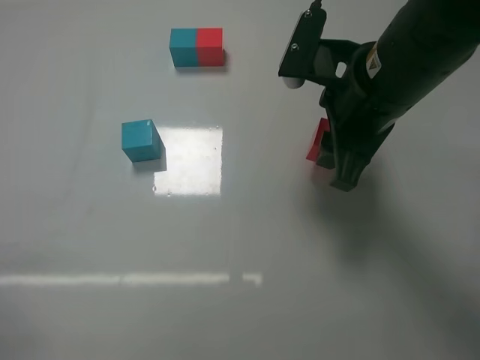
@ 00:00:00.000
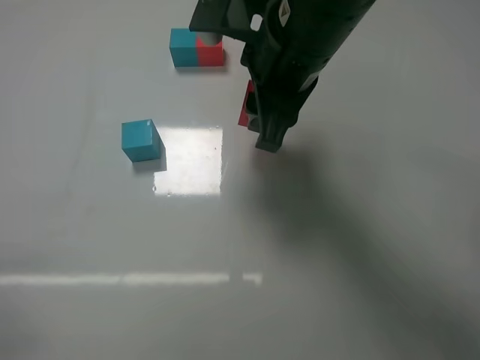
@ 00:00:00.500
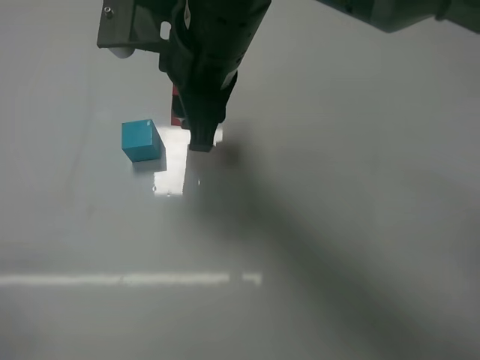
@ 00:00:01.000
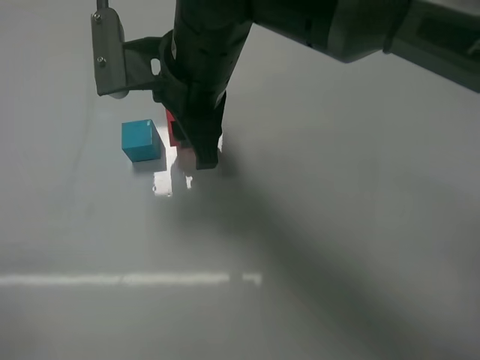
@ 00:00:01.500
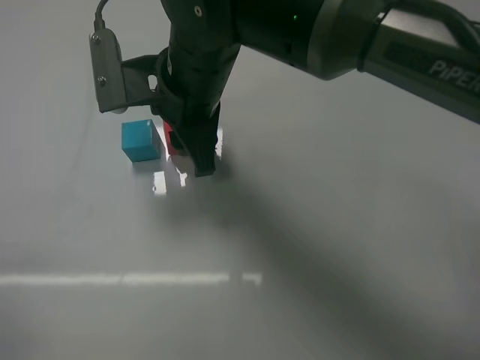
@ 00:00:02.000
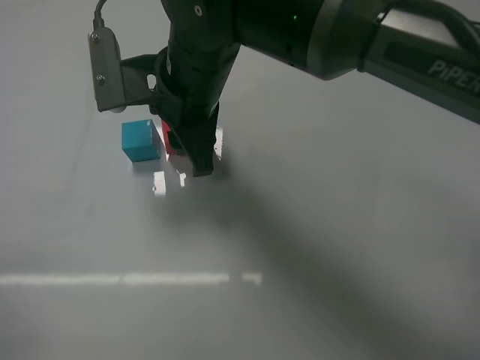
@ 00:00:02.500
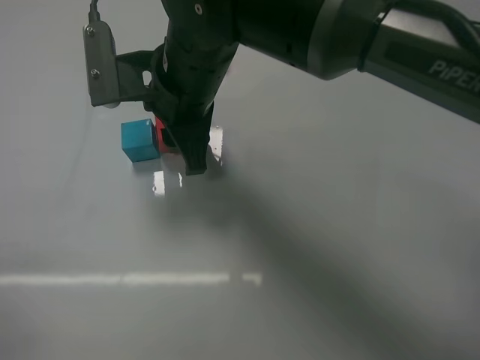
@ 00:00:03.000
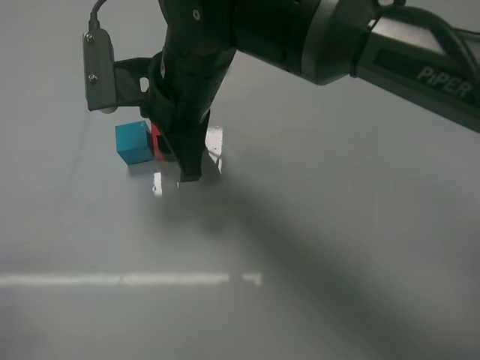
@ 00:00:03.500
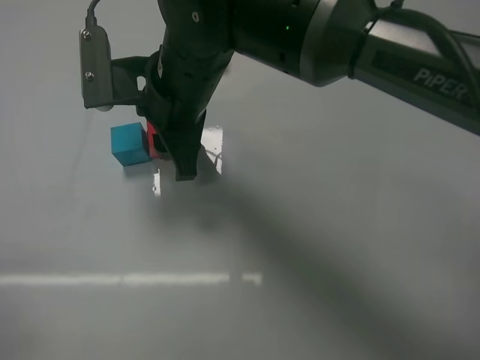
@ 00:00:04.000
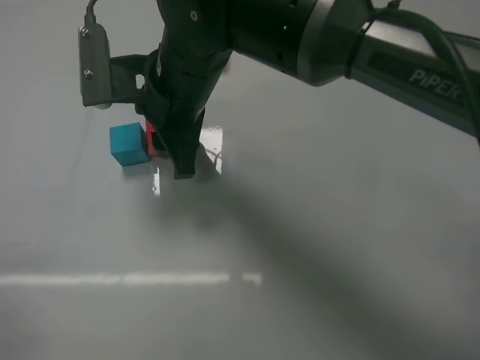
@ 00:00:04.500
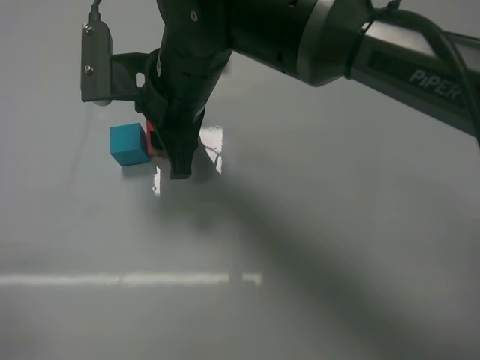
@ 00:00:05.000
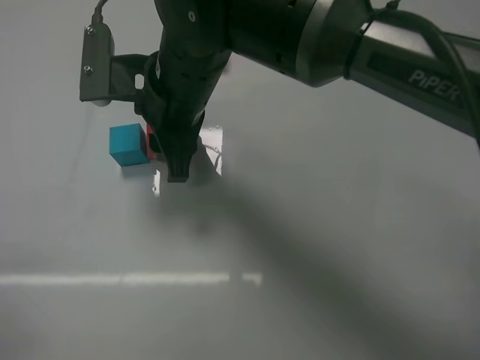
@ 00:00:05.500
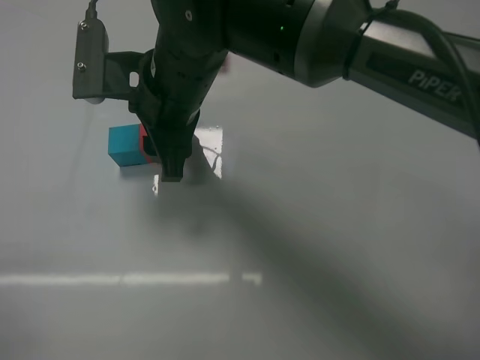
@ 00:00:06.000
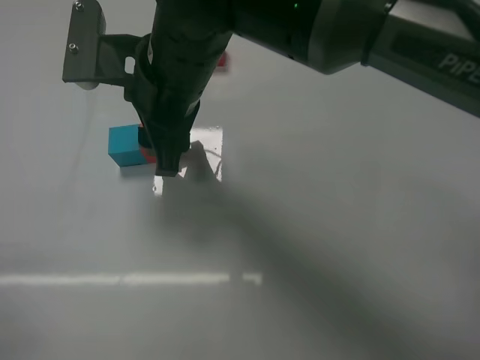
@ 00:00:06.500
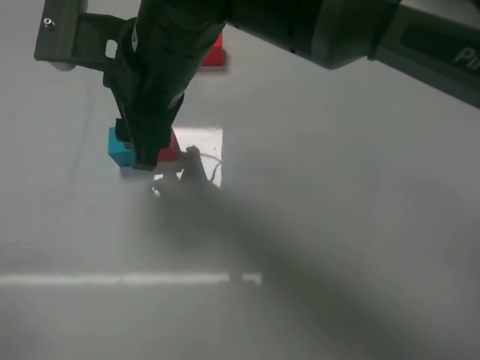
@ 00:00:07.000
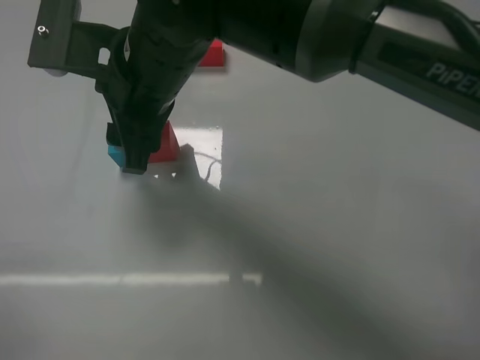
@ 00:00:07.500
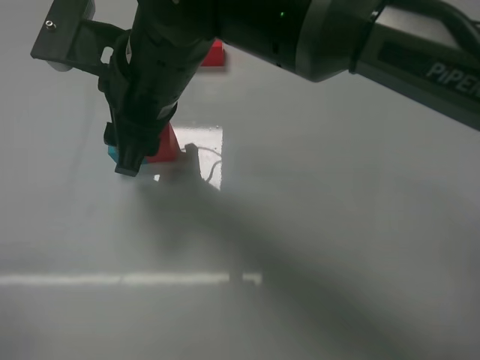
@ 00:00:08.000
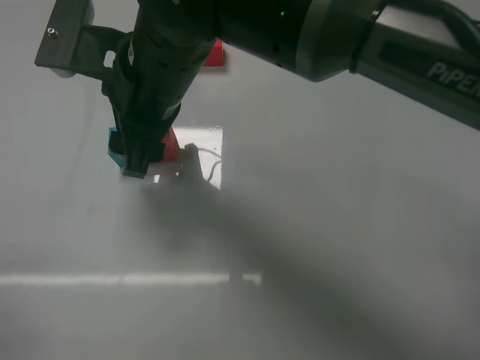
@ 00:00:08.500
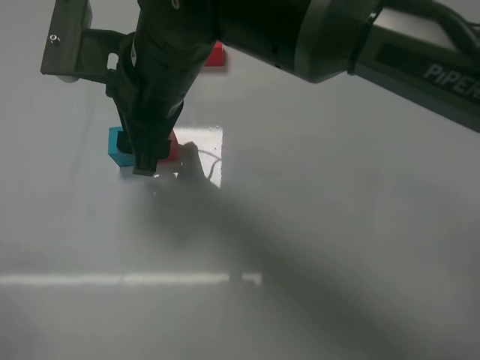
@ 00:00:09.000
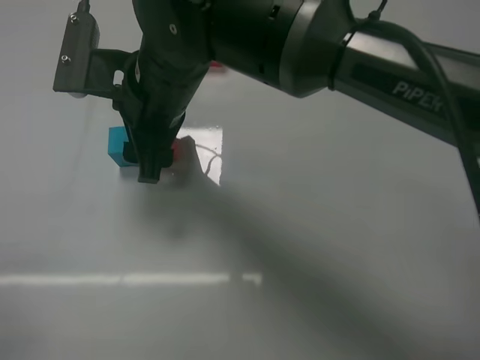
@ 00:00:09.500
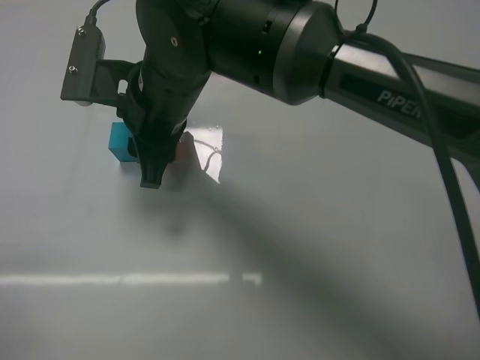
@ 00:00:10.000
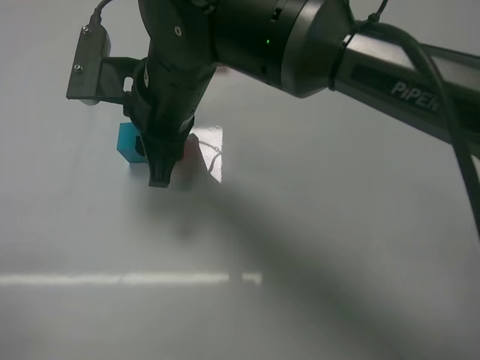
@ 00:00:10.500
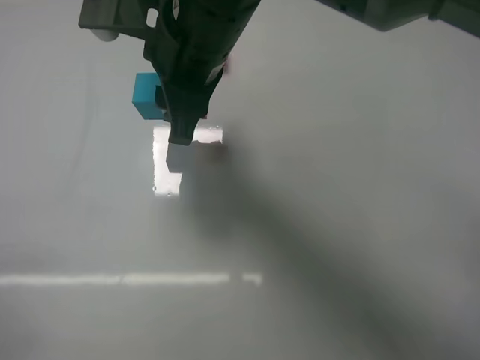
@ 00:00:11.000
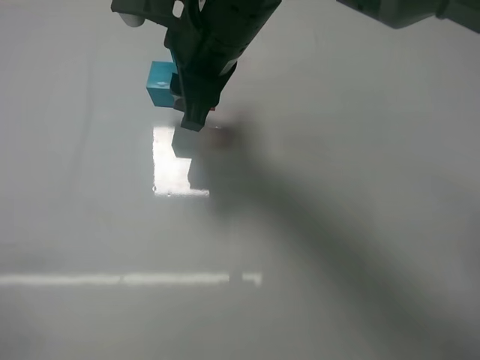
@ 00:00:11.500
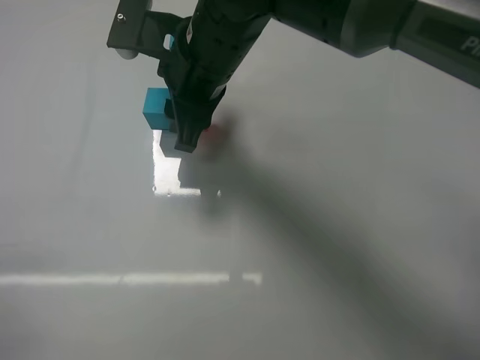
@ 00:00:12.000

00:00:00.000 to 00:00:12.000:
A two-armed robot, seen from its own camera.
Task of the whole recording: According to the building block template in front, assemble the scattered blocks together.
Step, 00:00:00.000 to 00:00:06.000: Put the red cube on the right of the blue cube with the right gripper.
00:00:00.000 to 00:00:02.000: The right gripper heads to the left, covering roughly 15 cm.
00:00:02.000 to 00:00:04.000: The grippers make only small movements.
00:00:04.000 to 00:00:06.000: The right gripper opens its fingers.
00:00:06.000 to 00:00:08.000: The grippers stay close to where they were, moving slightly.
00:00:08.000 to 00:00:10.000: The right gripper closes its fingers.
00:00:10.000 to 00:00:12.000: The right gripper moves roughly 5 cm.

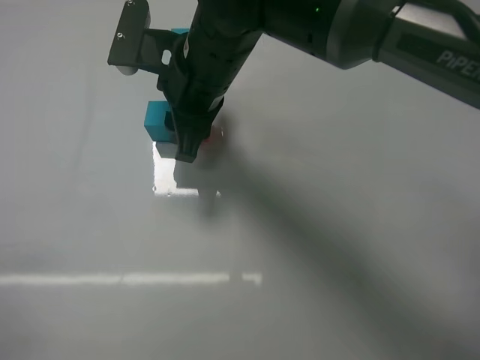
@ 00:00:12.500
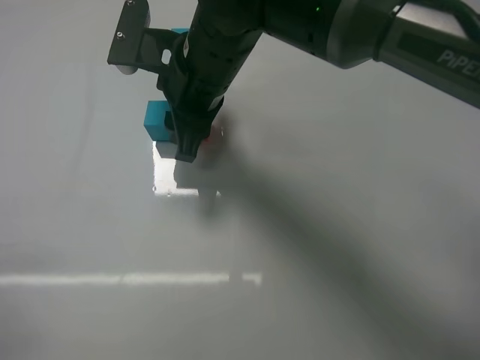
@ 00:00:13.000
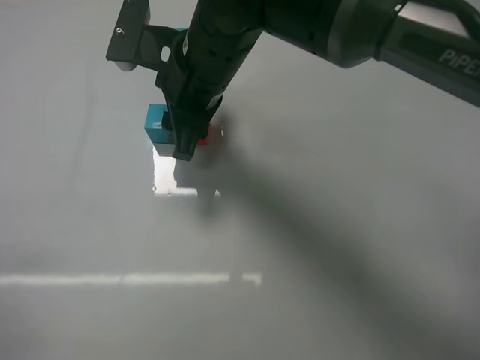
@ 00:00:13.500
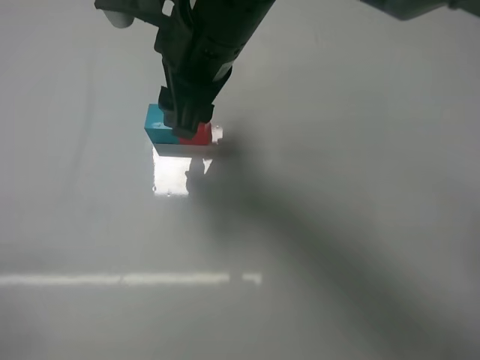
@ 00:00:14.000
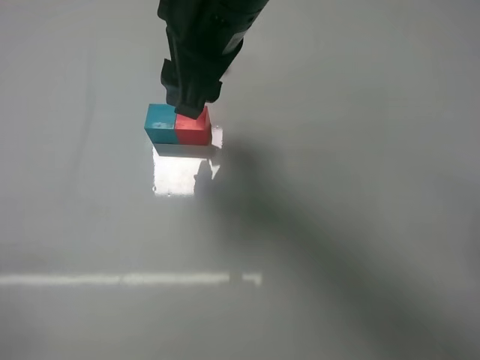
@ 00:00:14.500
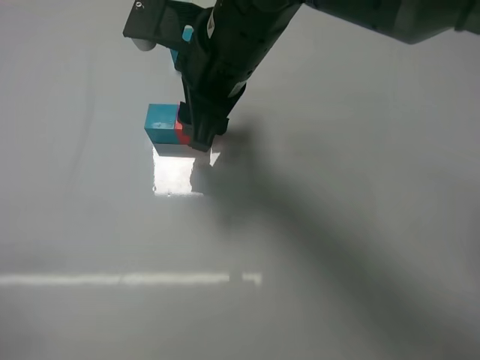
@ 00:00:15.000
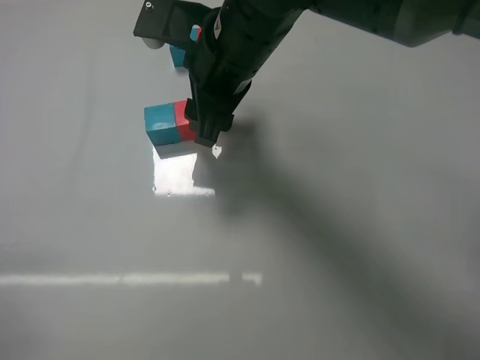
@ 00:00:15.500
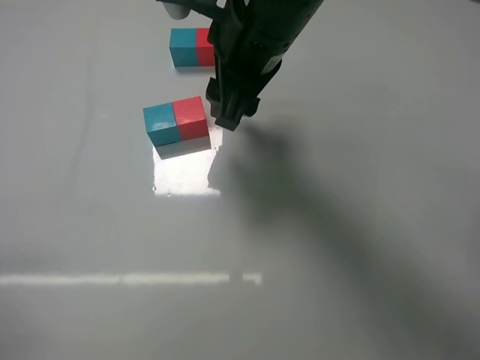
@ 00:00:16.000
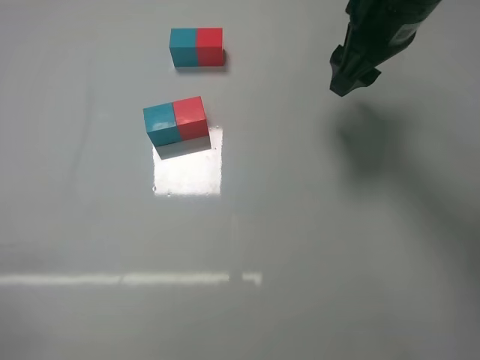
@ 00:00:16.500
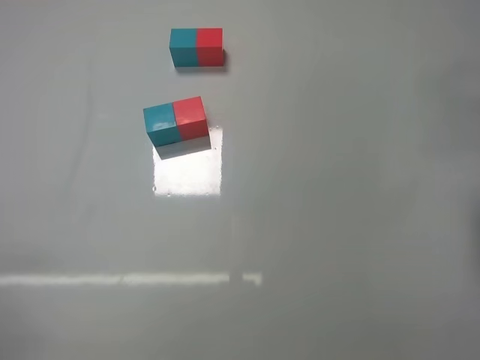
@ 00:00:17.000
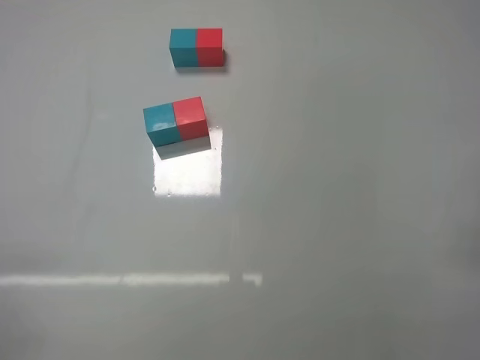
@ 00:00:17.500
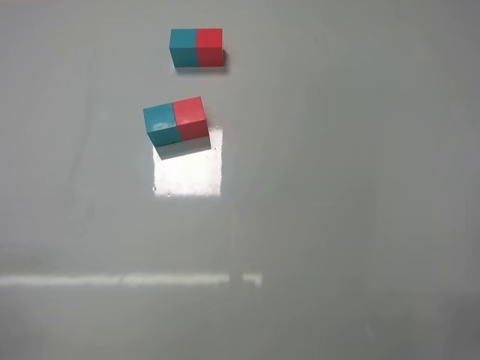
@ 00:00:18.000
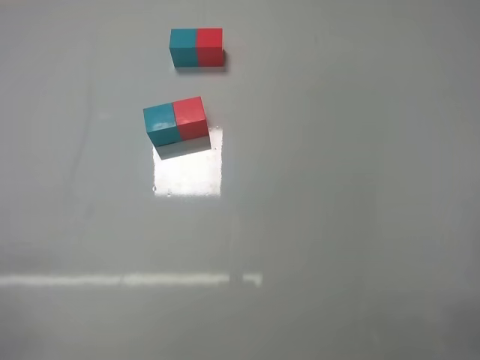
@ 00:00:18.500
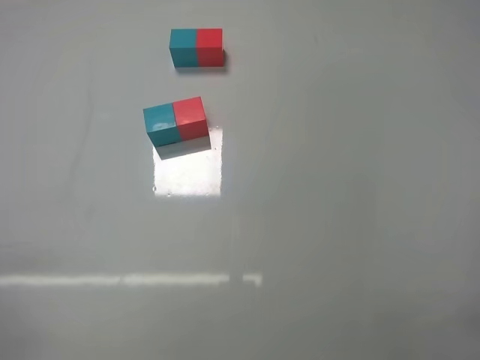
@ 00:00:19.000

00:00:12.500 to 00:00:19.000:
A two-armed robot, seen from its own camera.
Task of the whole recording: According to the building block template in front, assemble the scattered blocks together.
00:00:12.500 to 00:00:14.500: The right gripper travels upward by roughly 5 cm, and opens up.
00:00:14.500 to 00:00:17.000: The right gripper heads to the right, covering roughly 30 cm.
